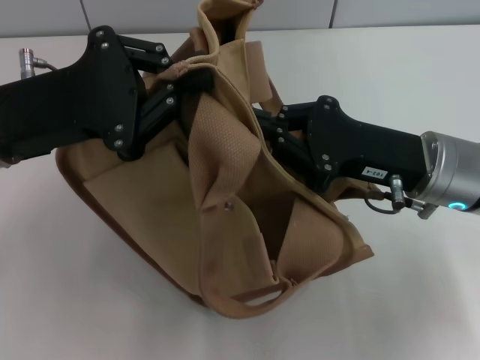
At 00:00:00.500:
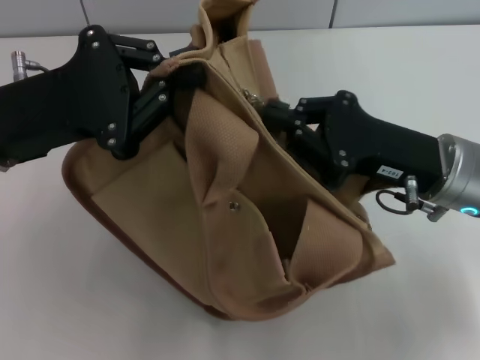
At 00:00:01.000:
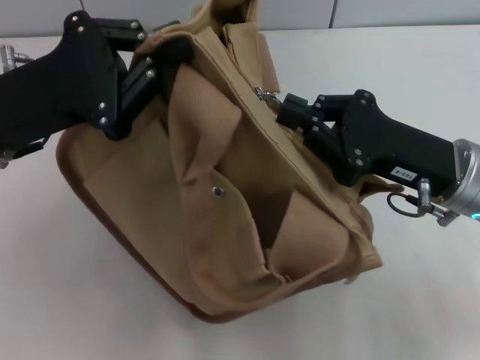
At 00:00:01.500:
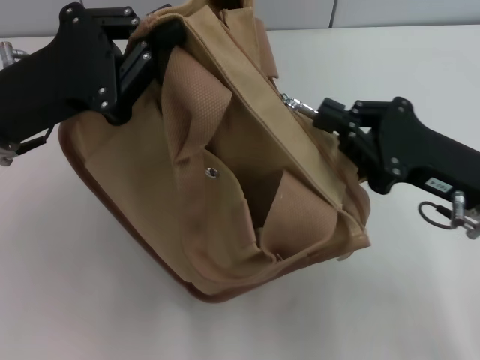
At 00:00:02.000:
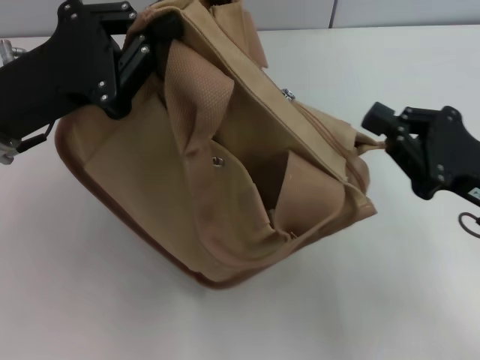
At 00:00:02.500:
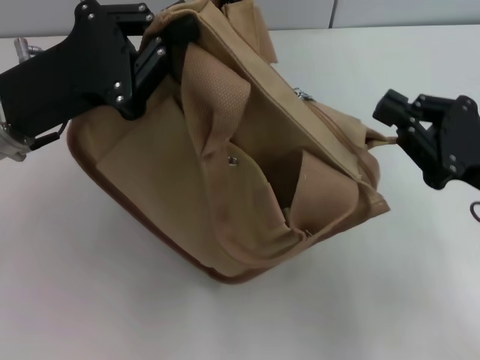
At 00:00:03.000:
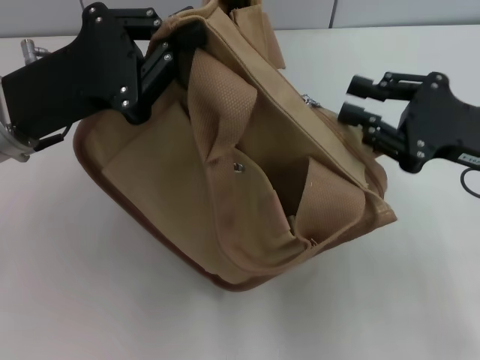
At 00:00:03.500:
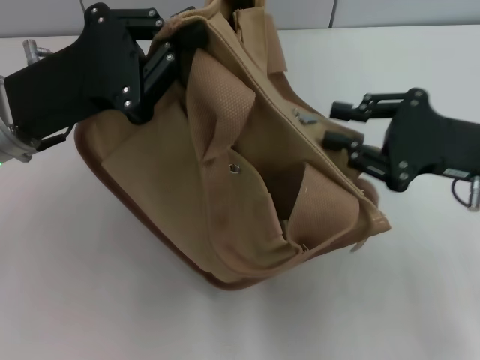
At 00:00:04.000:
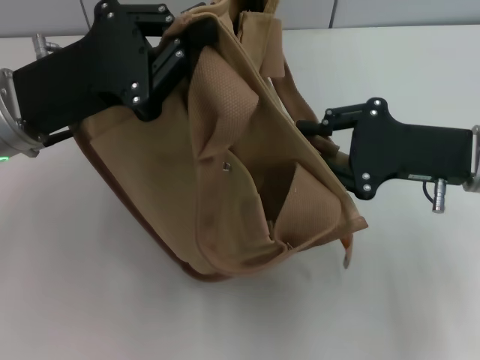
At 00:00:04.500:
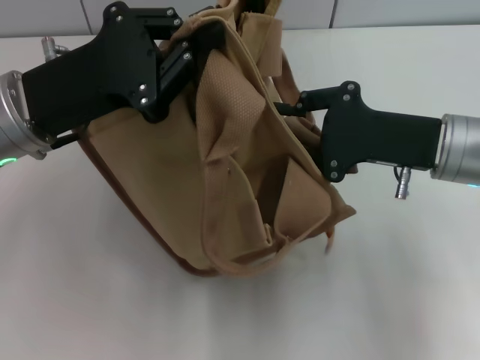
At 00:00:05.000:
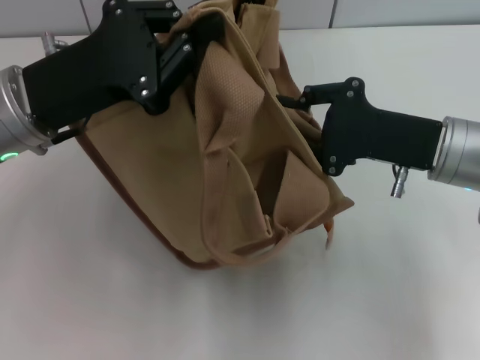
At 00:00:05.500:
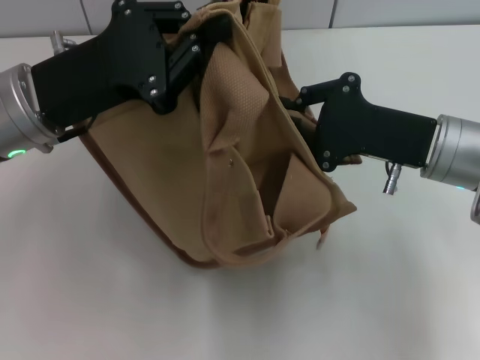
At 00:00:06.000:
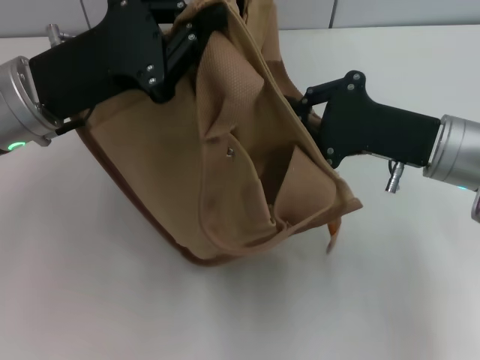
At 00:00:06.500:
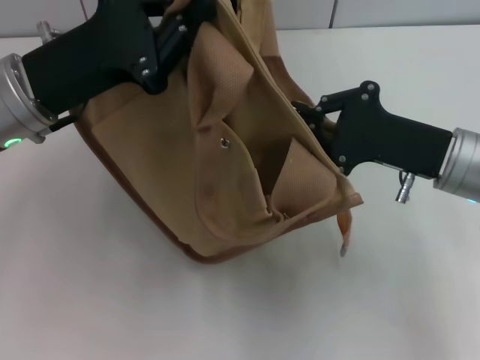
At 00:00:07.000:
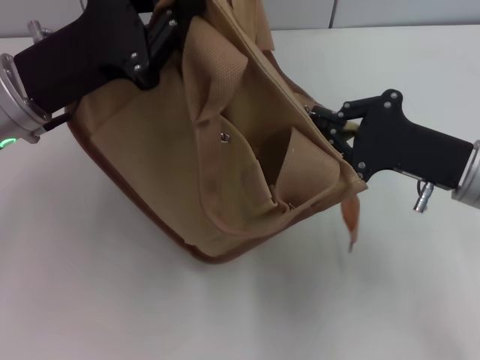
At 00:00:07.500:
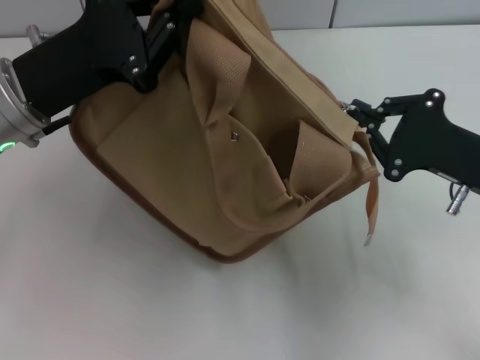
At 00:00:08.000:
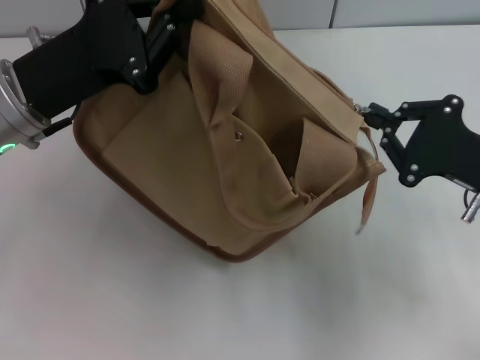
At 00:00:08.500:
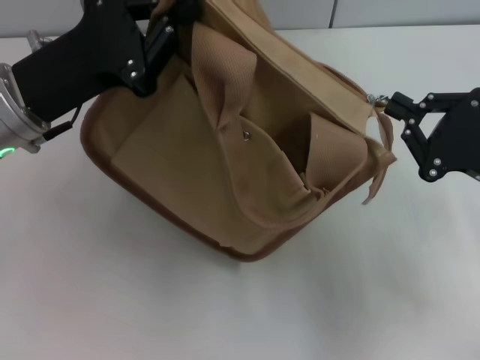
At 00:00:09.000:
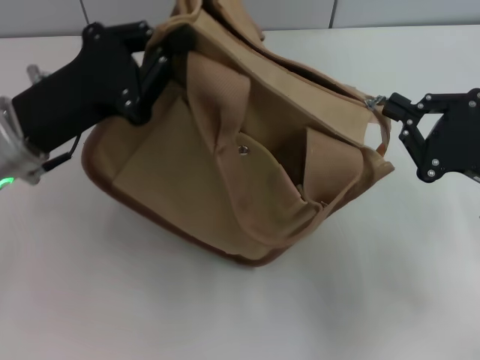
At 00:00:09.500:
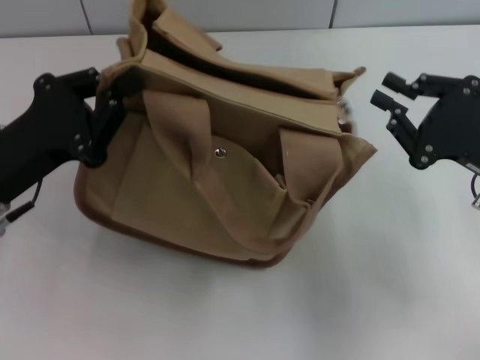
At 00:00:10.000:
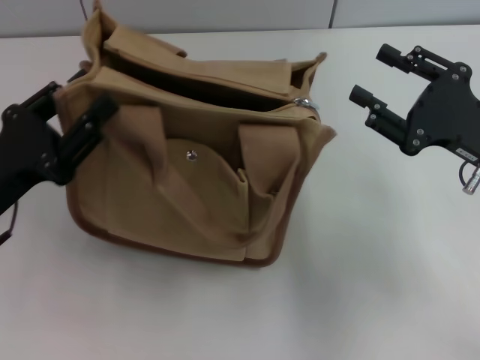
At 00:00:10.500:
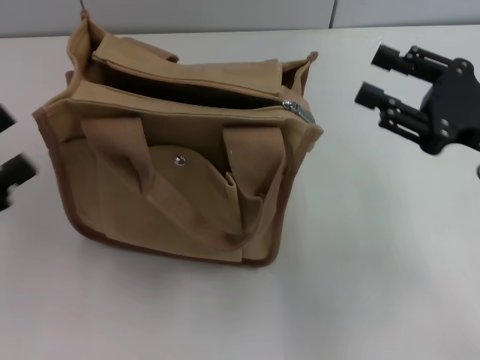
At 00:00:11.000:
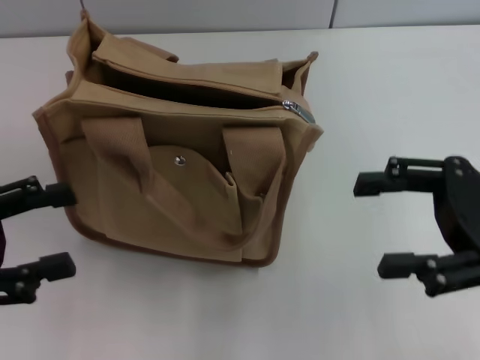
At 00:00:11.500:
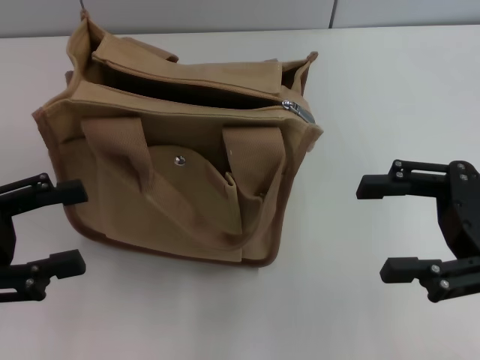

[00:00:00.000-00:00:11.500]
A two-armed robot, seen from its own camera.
Step, 00:00:00.000 to 00:00:09.500: Pull open the zipper with your right hand.
Step, 00:00:10.000 to 00:00:10.500: Grab the bag with your left hand.
00:00:00.000 to 00:00:02.000: The right gripper is displaced to the right by some 10 cm.
00:00:02.000 to 00:00:04.000: The right gripper travels forward by about 5 cm, and opens.
00:00:04.000 to 00:00:06.000: The right gripper closes up.
00:00:06.000 to 00:00:07.500: The right gripper travels to the right by approximately 5 cm.
00:00:07.500 to 00:00:09.500: The left gripper is displaced backward by approximately 5 cm.
00:00:09.500 to 00:00:11.500: The right gripper moves upward, roughly 5 cm, and opens up, while the left gripper goes about 5 cm to the left, and opens up.
